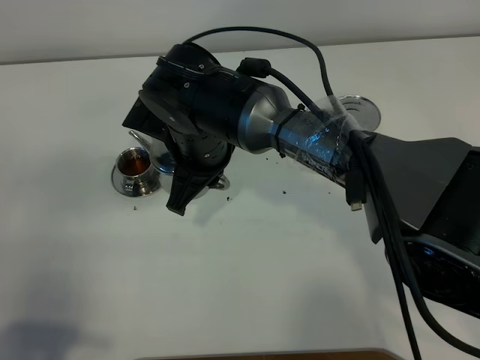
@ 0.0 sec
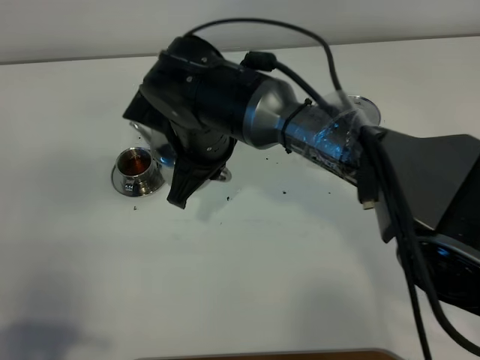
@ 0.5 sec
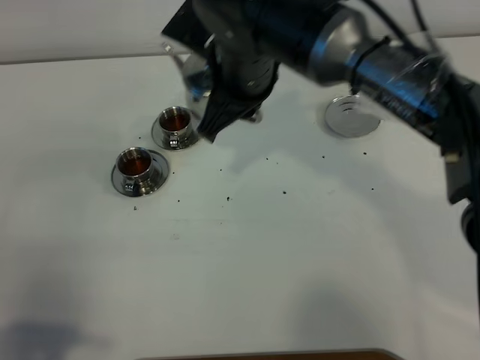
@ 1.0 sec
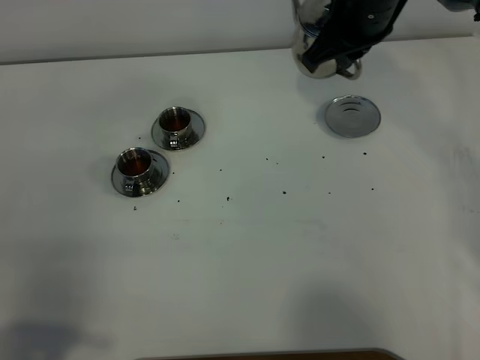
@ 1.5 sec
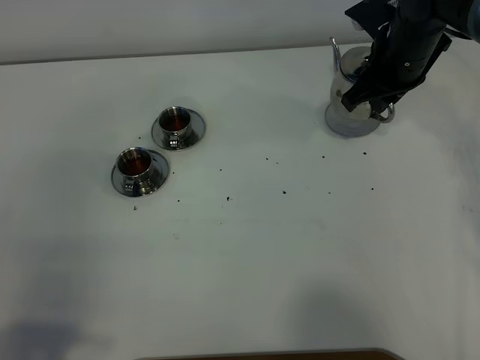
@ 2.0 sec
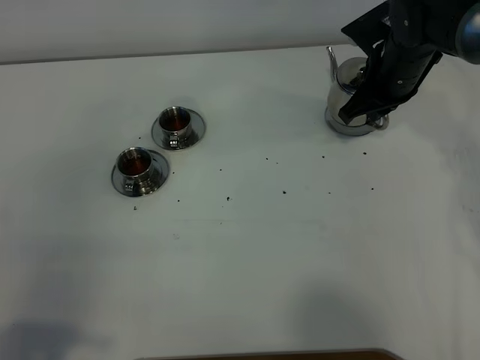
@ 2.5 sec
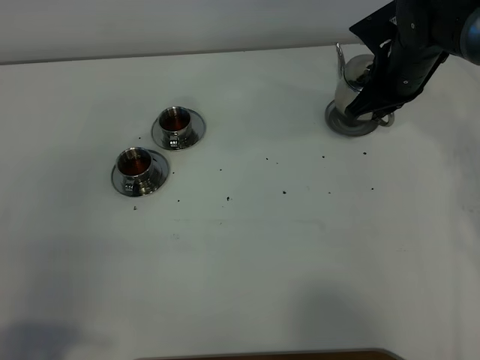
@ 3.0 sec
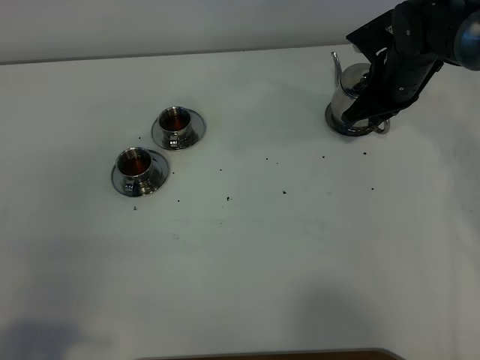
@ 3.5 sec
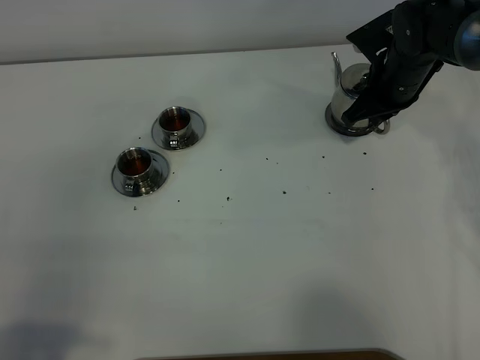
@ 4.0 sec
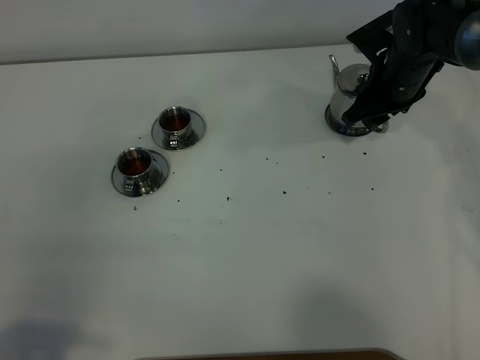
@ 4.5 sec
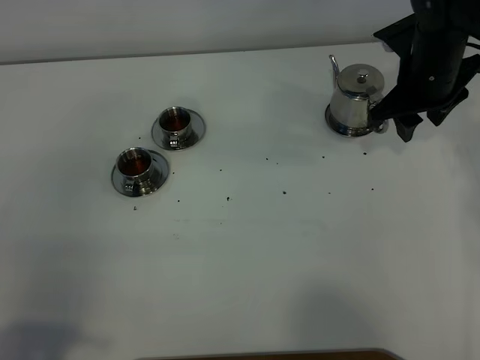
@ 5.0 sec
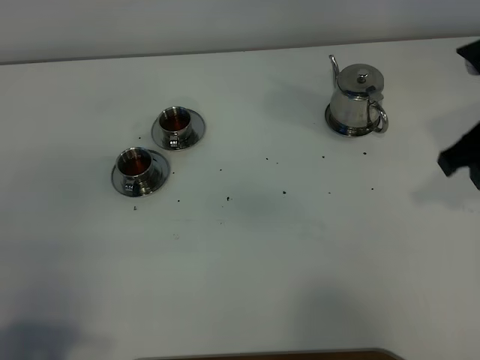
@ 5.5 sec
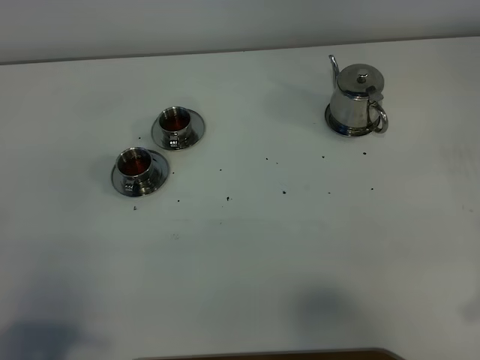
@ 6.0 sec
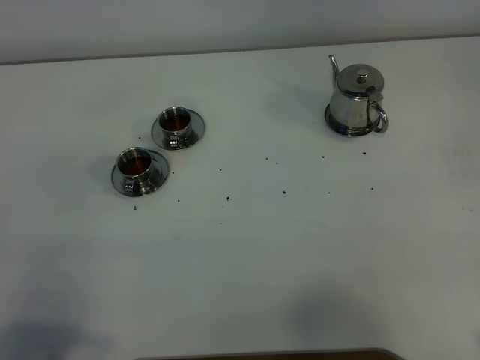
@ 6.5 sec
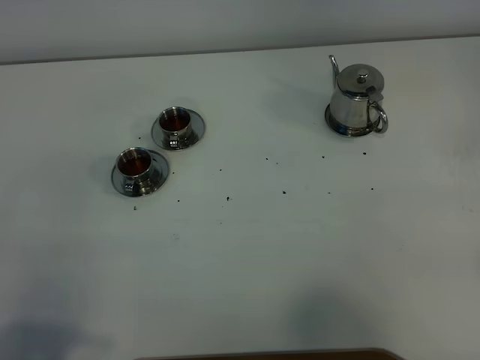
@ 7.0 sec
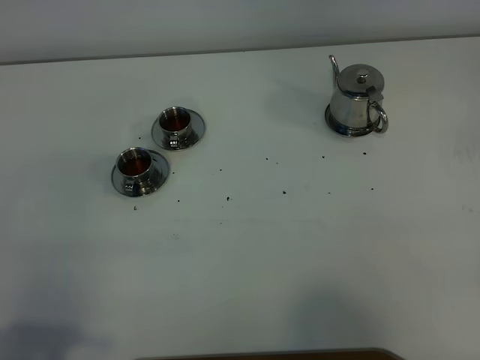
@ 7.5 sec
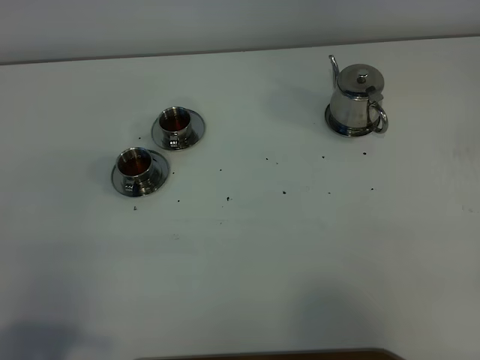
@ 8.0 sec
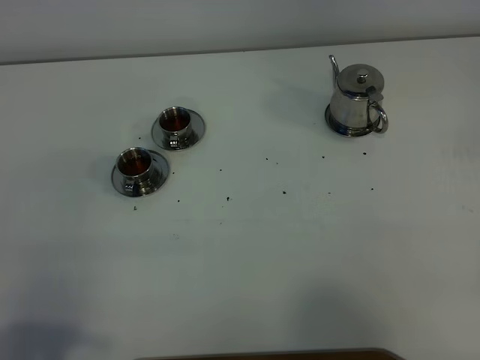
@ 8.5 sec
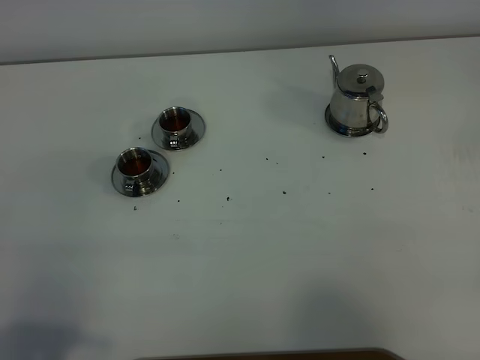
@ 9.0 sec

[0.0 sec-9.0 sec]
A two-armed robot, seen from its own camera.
Task of the whole recording: grasp the stainless steel teapot and pour the tea into the two stainless steel teacups one by one, put the stainless steel teapot back in its original place.
0.0 sec to 2.0 sec: The right gripper is displaced to the right and forward by roughly 25 cm.
2.0 sec to 4.5 sec: The right gripper shifts roughly 5 cm downward, and opens.
4.5 sec to 7.0 sec: The right gripper heads backward and to the right, covering some 40 cm.
